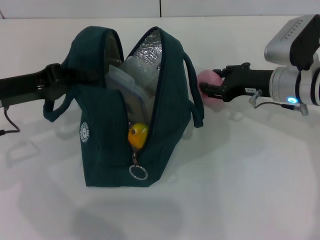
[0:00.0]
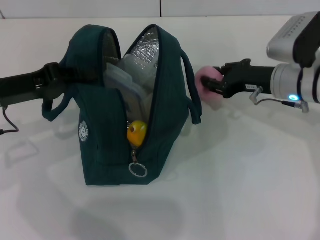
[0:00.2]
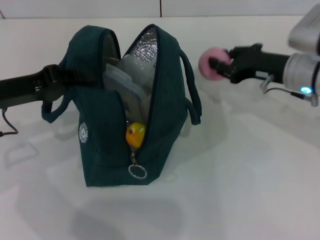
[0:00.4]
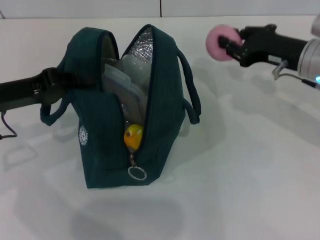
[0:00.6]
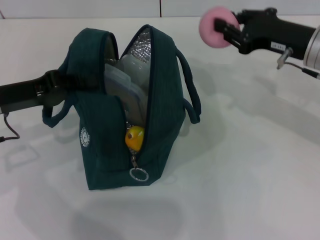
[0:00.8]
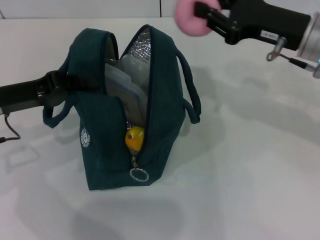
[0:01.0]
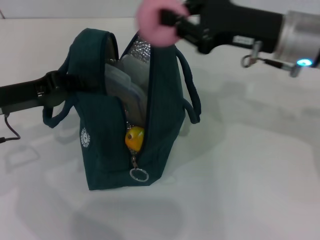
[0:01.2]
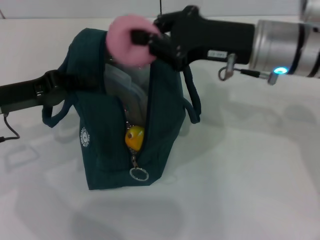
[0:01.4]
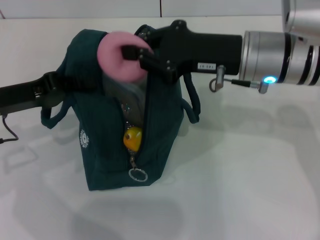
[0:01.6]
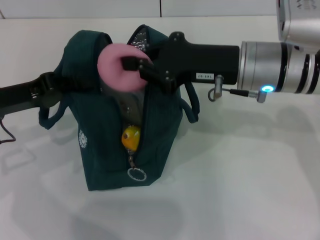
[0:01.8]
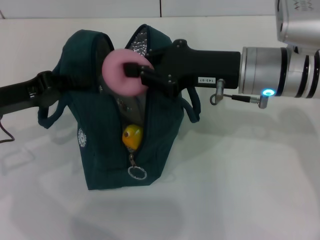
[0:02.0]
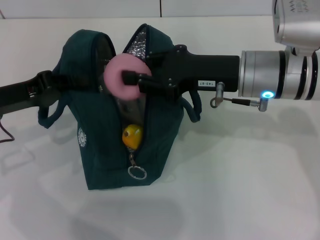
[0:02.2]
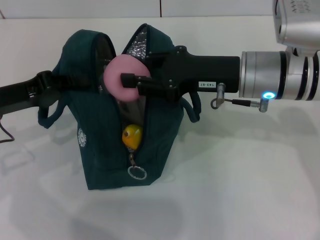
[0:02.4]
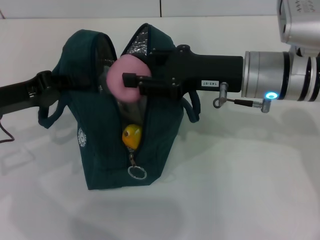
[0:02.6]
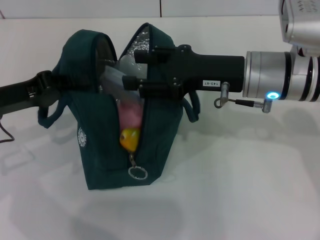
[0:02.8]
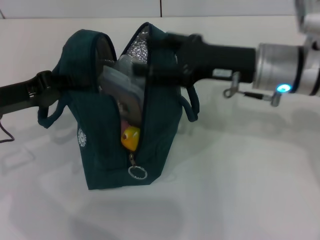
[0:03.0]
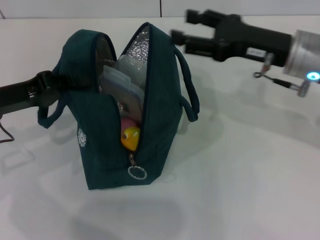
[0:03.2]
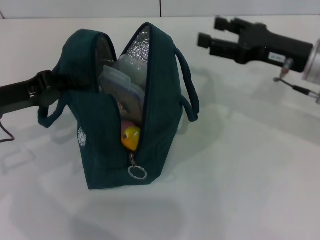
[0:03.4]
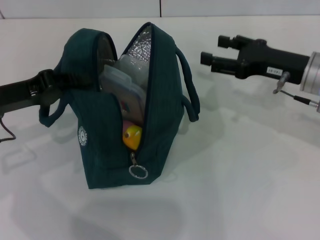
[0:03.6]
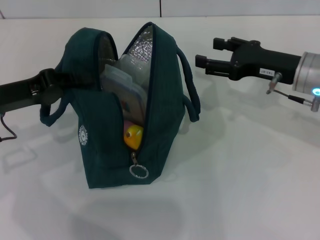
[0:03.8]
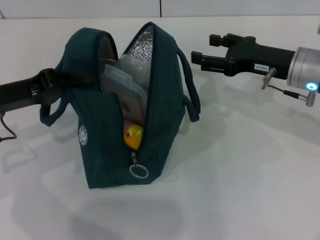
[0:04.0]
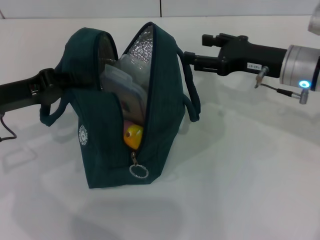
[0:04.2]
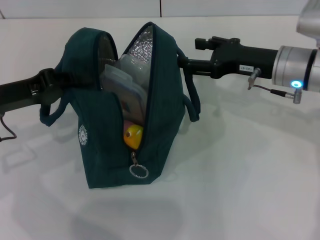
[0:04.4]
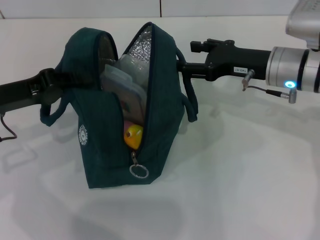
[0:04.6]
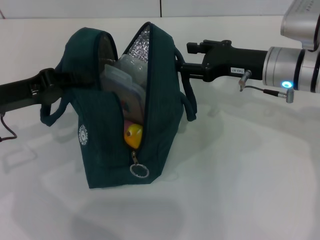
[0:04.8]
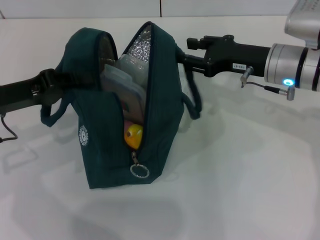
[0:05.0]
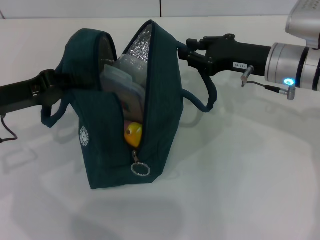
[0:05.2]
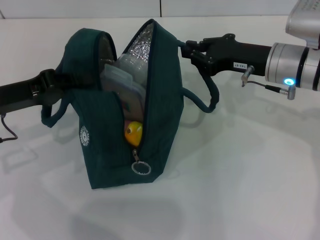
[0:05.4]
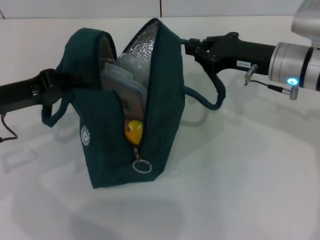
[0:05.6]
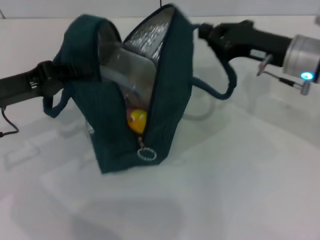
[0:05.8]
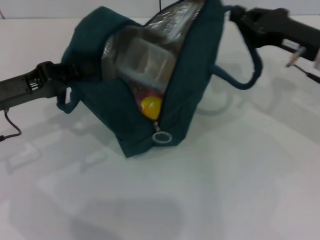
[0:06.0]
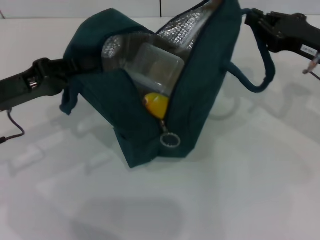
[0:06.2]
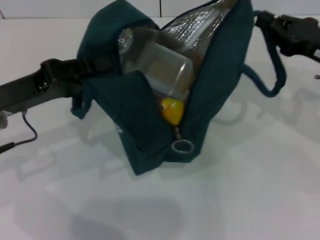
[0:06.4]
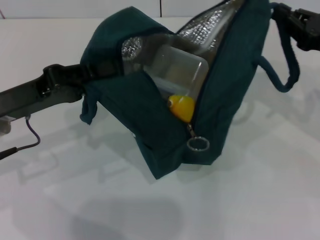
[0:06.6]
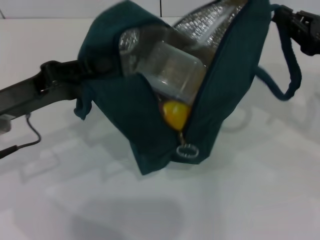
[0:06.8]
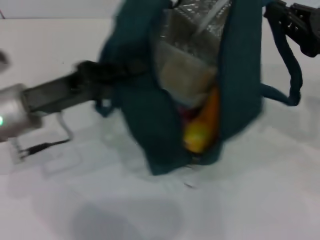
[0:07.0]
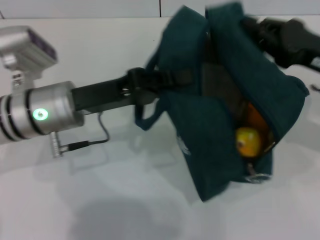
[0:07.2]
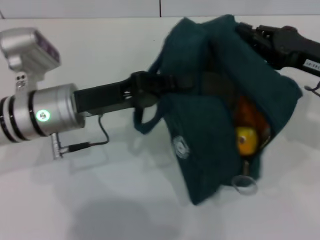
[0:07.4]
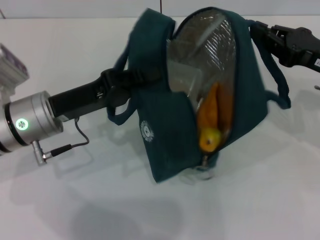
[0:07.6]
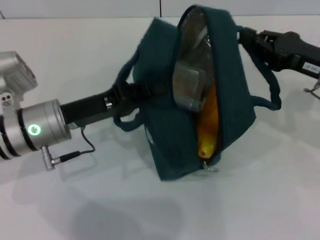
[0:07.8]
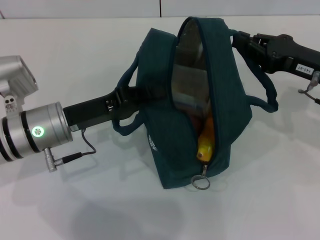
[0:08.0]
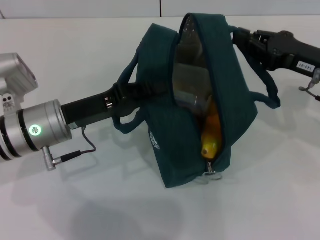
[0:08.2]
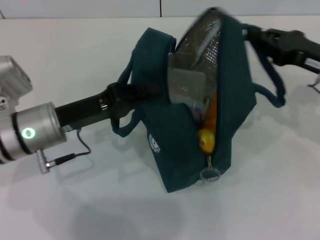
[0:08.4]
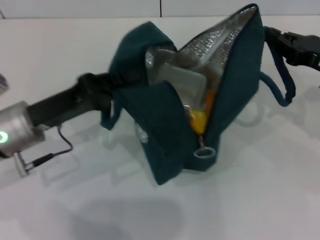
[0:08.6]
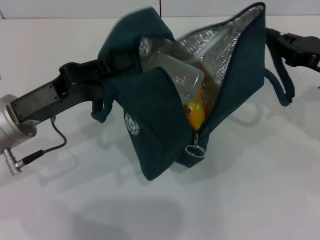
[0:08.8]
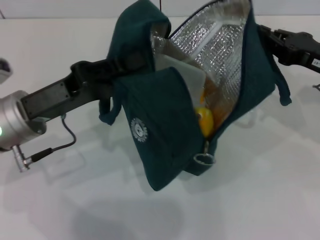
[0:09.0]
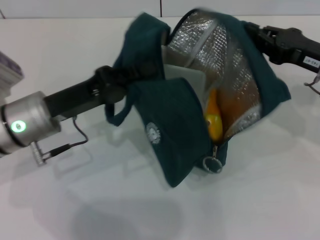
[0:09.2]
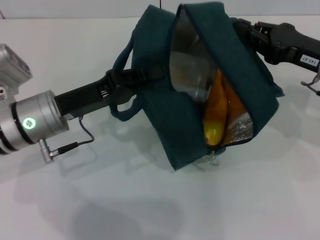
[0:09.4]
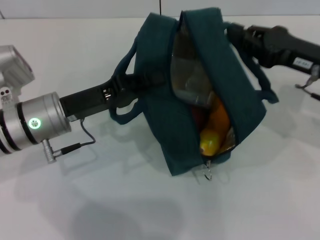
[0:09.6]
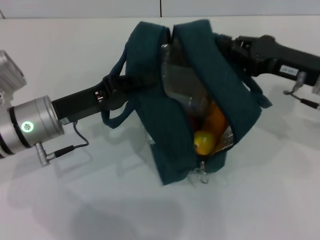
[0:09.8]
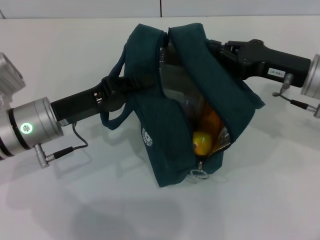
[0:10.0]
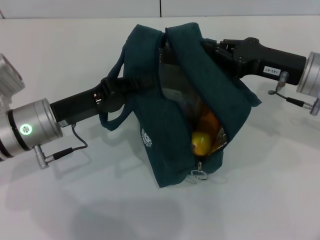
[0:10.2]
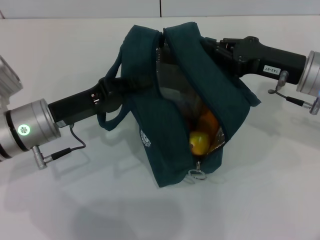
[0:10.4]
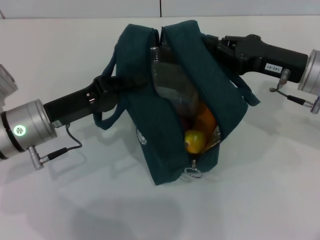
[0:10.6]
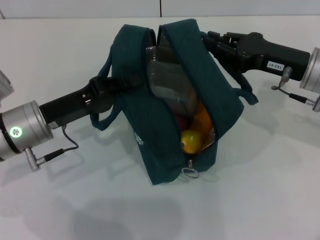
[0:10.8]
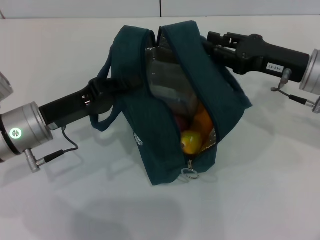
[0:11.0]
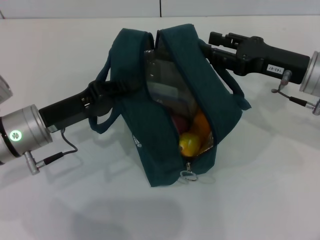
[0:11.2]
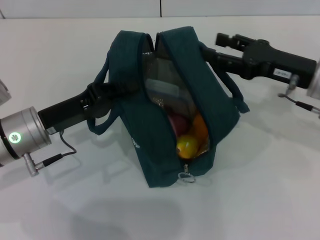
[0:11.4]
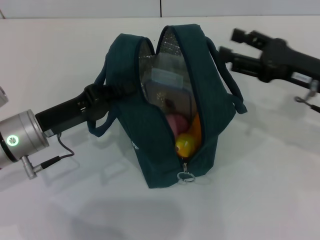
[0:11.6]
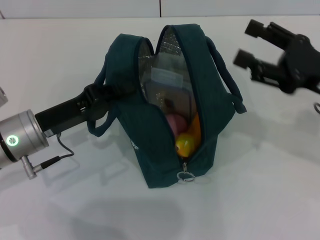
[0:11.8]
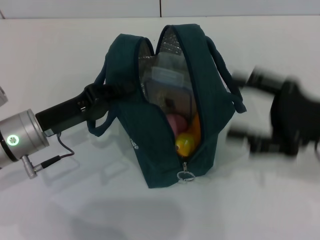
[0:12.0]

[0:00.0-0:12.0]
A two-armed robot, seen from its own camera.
Step, 0:03.0 to 0:11.0: Hold the lunch bag with your right hand.
0:00.0 to 0:01.6: The right gripper is displaced upward and to the left by roughly 10 cm, and closes up.
0:01.6 to 0:03.0: The right gripper opens its fingers.
0:03.0 to 0:04.4: The right gripper moves about 5 cm.
0:04.4 to 0:06.0: The right gripper shifts roughly 5 cm to the right, and closes its fingers.
0:06.0 to 0:07.6: The left gripper moves to the right, about 10 cm.
0:09.0 to 0:10.4: The right gripper is displaced to the left by some 5 cm.
0:10.4 to 0:12.0: The right gripper shifts approximately 10 cm backward, and opens its fingers.

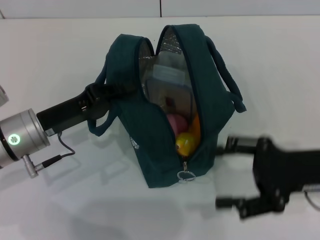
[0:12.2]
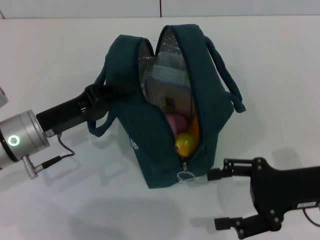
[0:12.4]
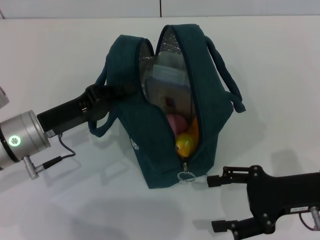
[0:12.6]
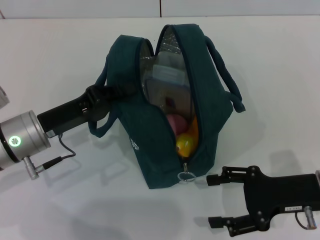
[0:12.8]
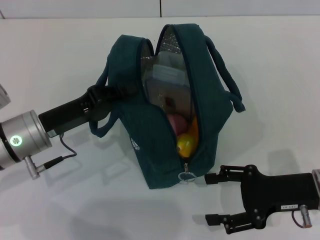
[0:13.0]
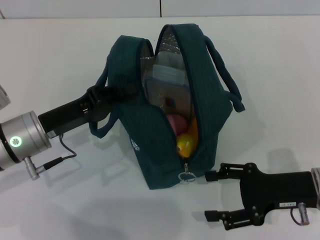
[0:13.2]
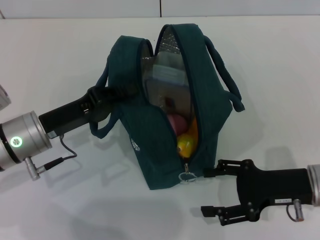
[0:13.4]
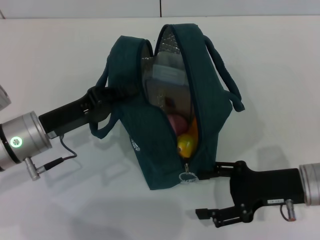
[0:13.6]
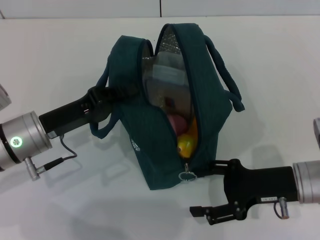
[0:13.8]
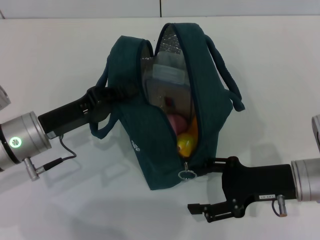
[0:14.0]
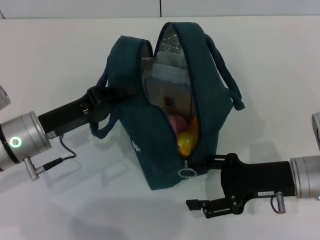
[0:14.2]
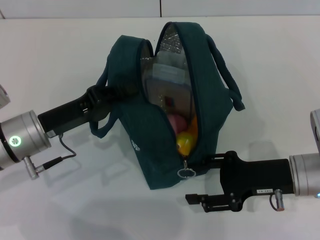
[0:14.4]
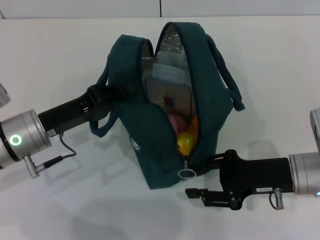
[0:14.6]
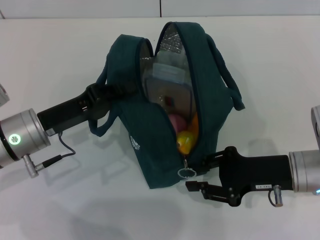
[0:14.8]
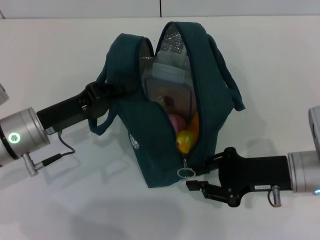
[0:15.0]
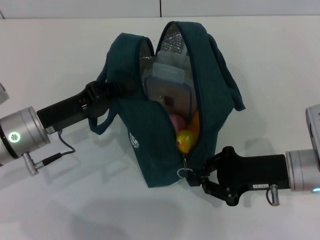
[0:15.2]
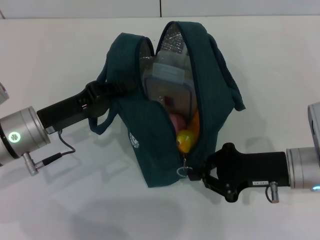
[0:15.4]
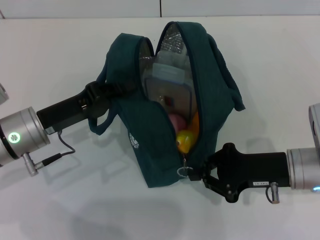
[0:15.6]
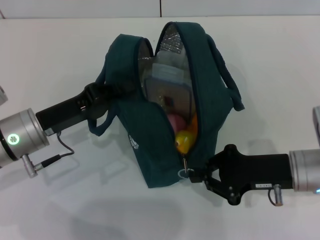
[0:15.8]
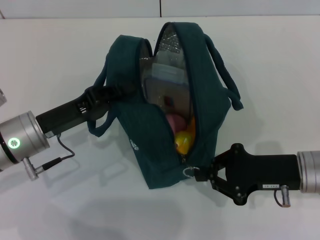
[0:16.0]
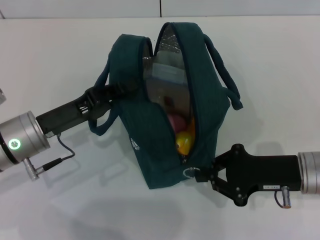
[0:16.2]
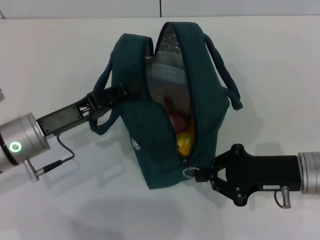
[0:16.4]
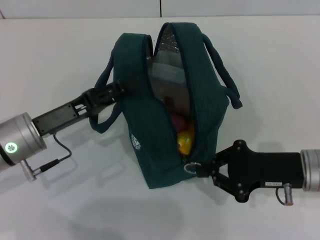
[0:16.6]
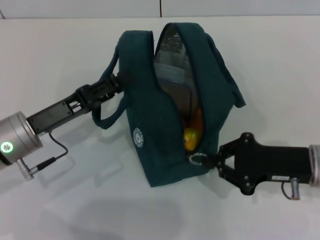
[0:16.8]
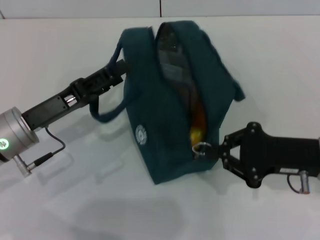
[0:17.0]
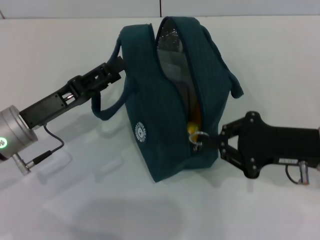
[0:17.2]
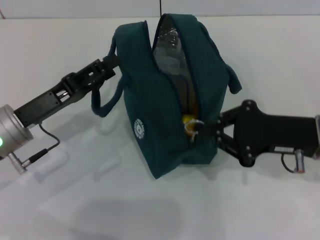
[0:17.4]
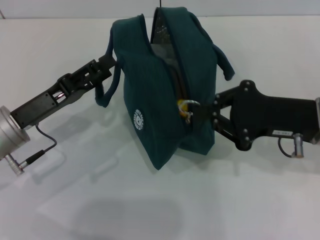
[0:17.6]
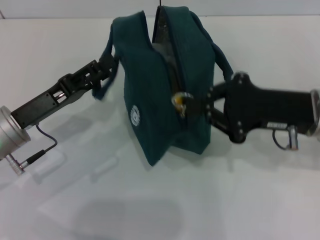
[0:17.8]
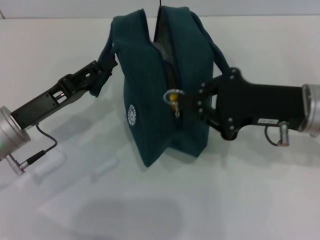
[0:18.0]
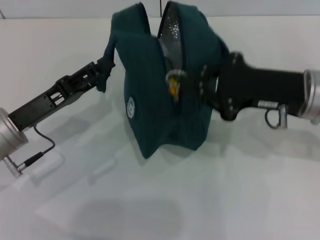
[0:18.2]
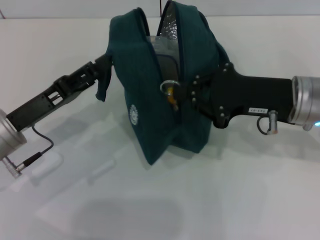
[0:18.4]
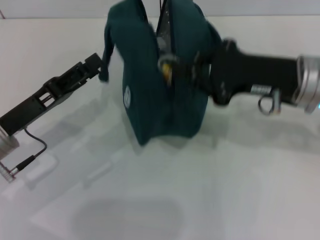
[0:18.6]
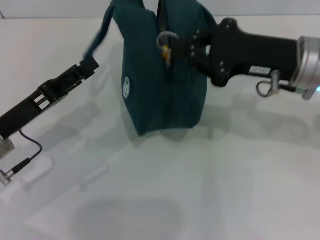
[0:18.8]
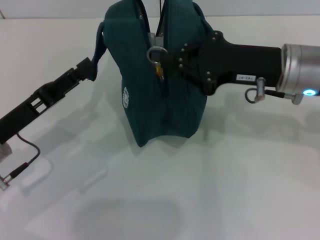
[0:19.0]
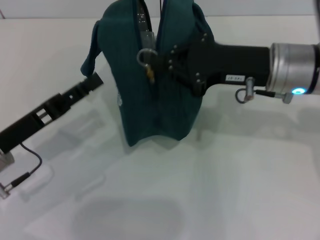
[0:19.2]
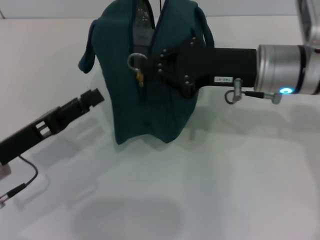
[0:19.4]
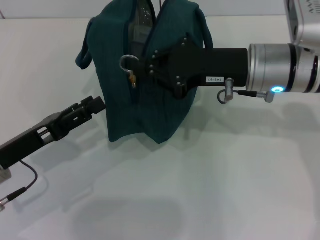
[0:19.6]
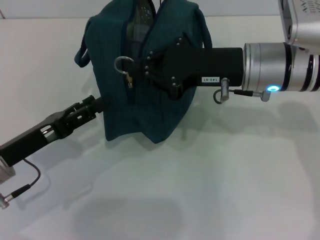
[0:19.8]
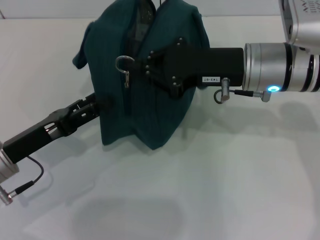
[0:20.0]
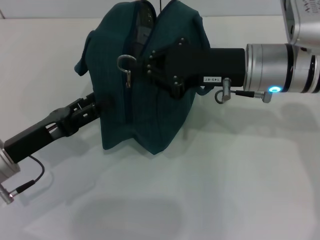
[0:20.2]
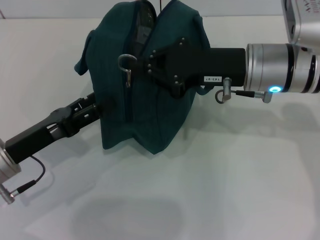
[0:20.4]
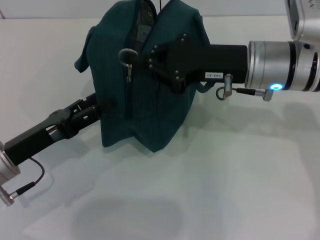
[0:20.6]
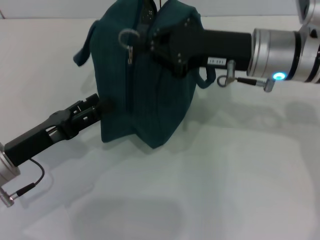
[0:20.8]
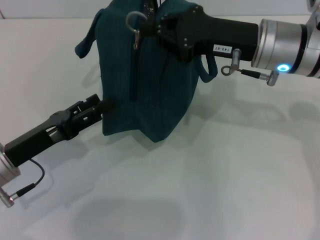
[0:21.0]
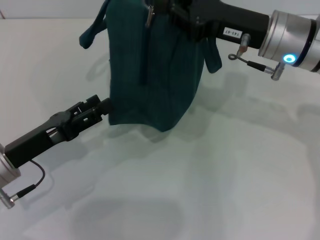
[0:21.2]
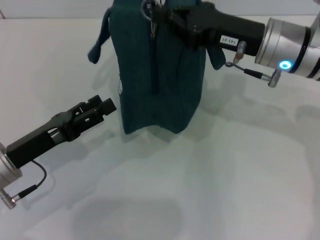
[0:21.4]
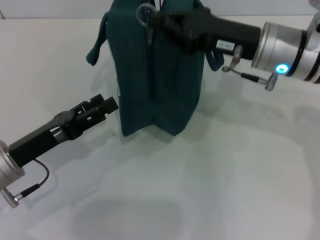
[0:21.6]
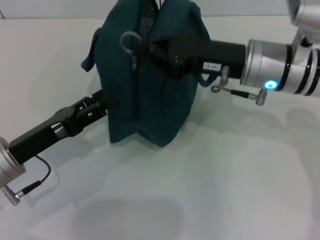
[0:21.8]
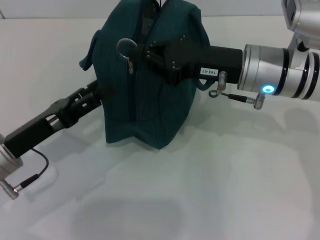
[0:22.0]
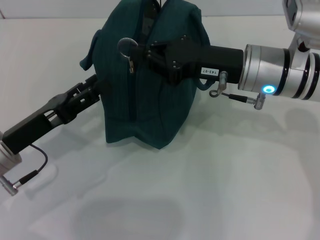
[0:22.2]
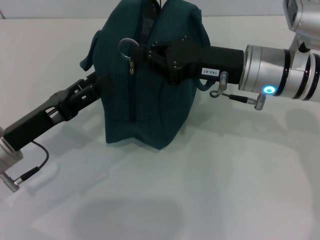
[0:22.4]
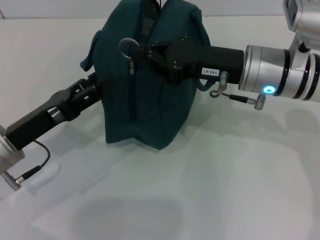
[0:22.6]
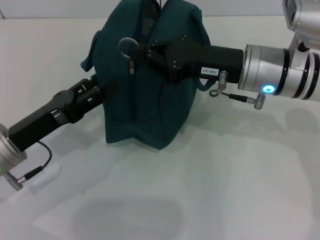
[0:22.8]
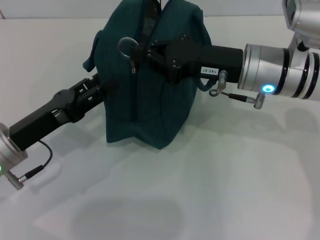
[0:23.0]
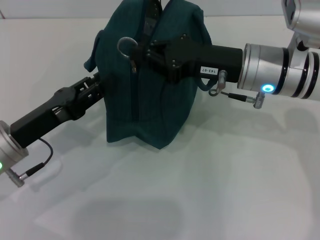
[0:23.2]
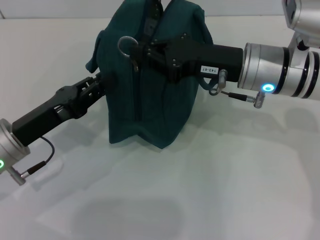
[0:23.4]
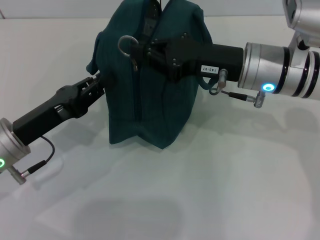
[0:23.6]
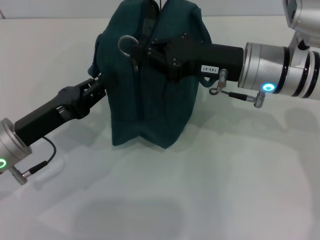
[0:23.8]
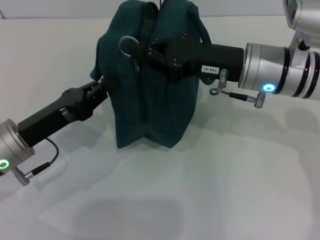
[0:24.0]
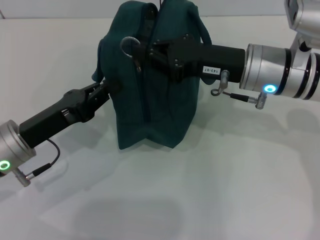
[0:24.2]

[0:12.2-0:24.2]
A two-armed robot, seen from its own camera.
Step, 0:12.2 to 0:19.4: Hold the lunch bag with your left hand.
0:12.2 to 0:13.8: The right gripper is displaced downward by approximately 5 cm.
0:13.8 to 0:15.2: The right gripper closes up.
0:15.2 to 0:16.6: The left gripper opens.
0:16.6 to 0:18.2: The right gripper travels upward by approximately 10 cm, while the left gripper opens its fingers.
0:18.2 to 0:19.8: The right gripper goes about 5 cm to the left.
0:22.6 to 0:24.2: The left gripper closes.
